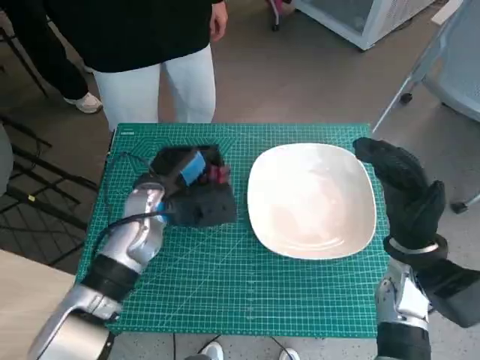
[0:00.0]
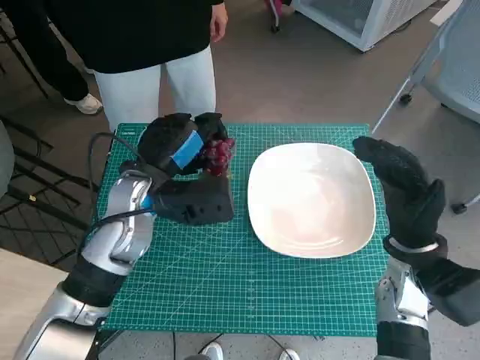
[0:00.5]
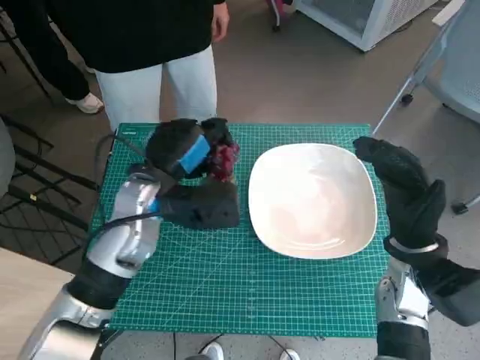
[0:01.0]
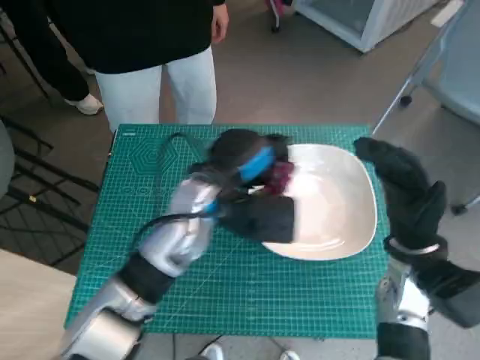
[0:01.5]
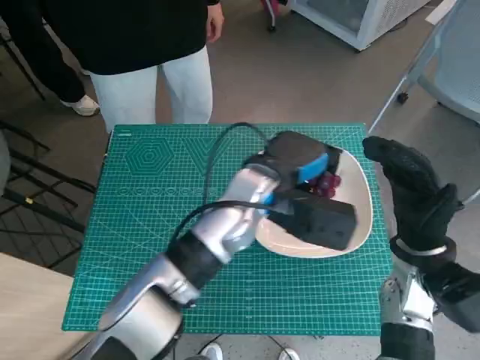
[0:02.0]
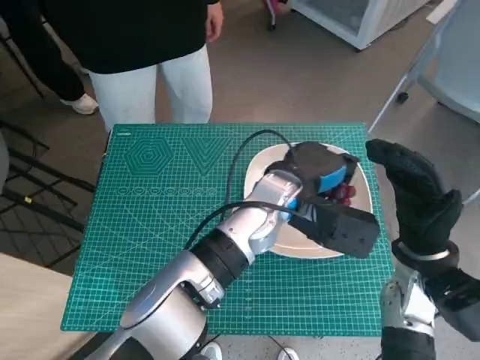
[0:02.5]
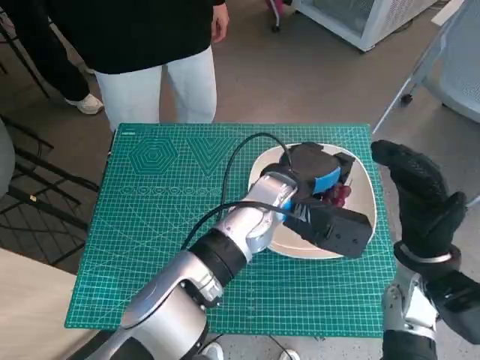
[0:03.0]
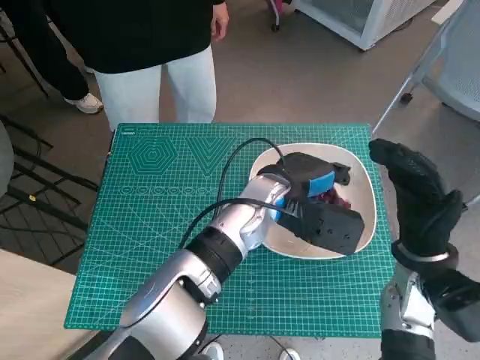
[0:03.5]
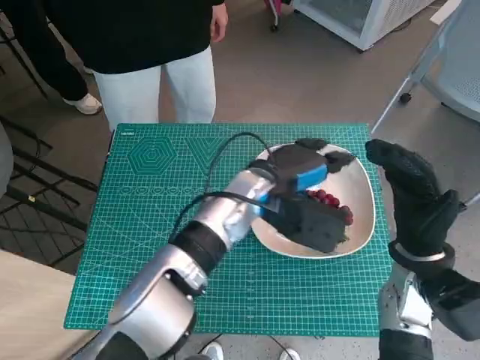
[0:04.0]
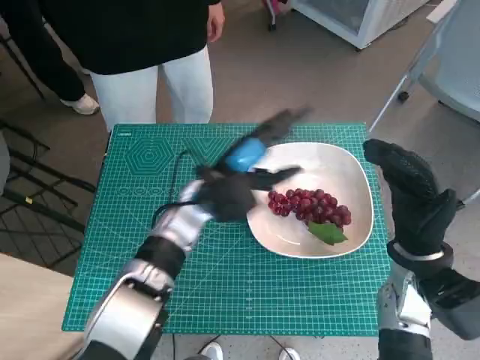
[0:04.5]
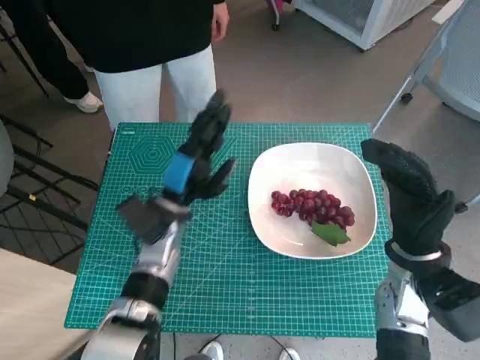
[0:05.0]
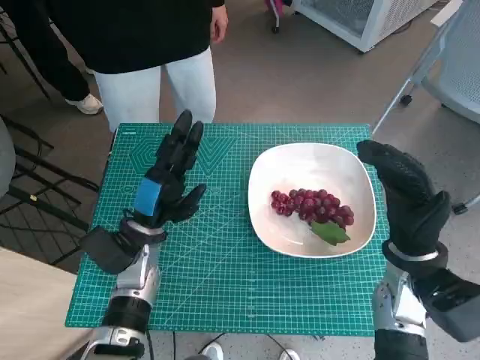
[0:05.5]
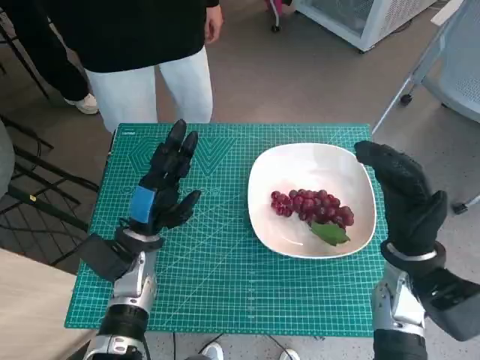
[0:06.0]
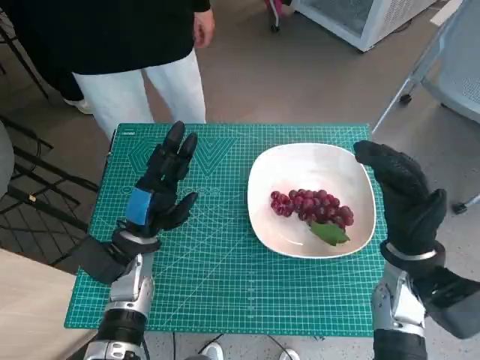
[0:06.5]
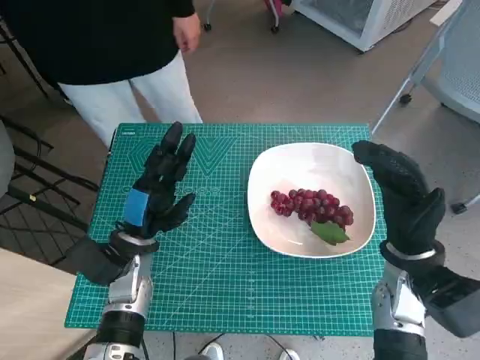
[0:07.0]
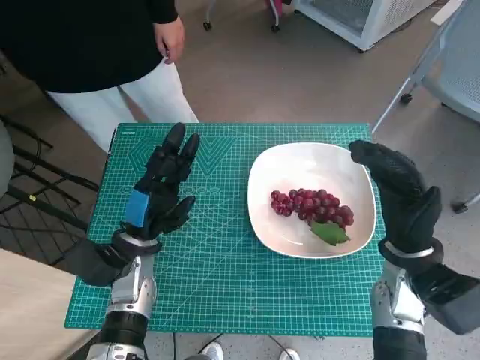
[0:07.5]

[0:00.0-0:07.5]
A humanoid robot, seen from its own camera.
Task of the whole recording: Pick up the grapes and put them on the plate.
Step, 0:00.0 to 0:03.5: Place the grapes in the plate with left hand.
0:00.0 to 0:02.0: The left hand heads to the right and upward, covering roughly 15 cm.
0:02.0 to 0:04.0: There are only small adjustments of the hands.
0:04.0 to 0:05.5: The left hand shifts some 20 cm to the left and downward.
0:05.5 to 0:07.5: The hands stay close to where they were, moving slightly.
